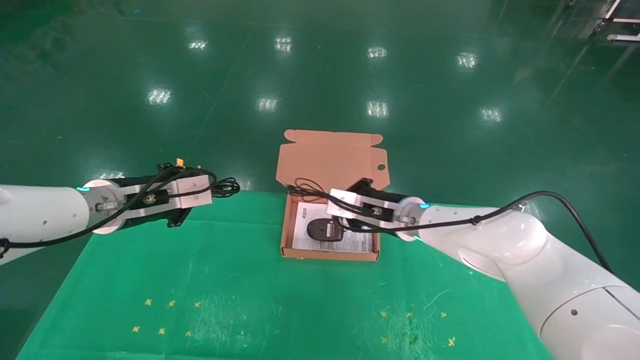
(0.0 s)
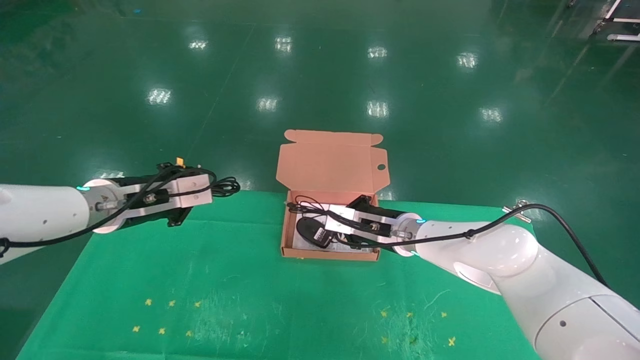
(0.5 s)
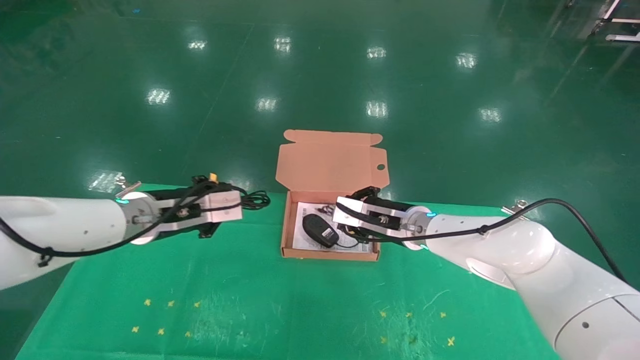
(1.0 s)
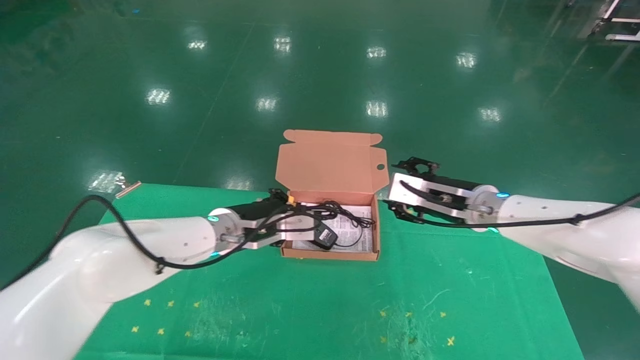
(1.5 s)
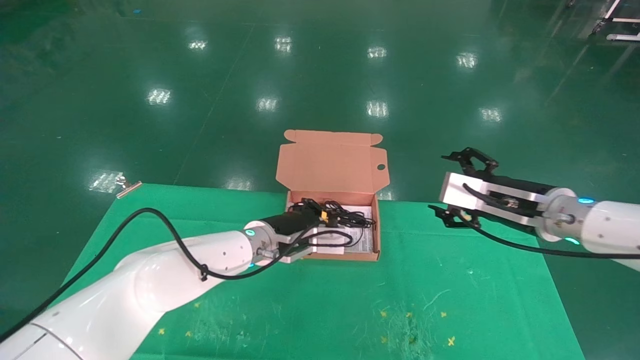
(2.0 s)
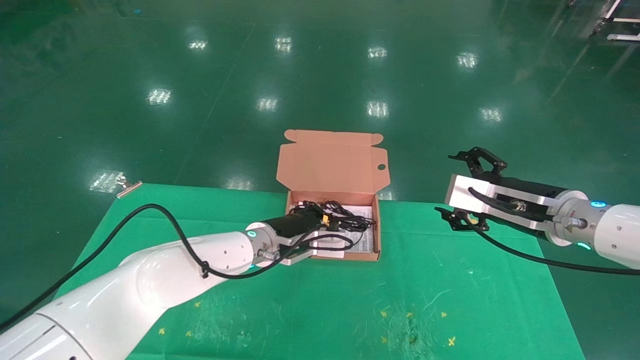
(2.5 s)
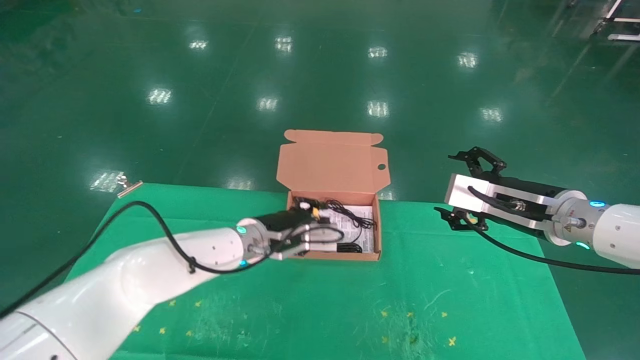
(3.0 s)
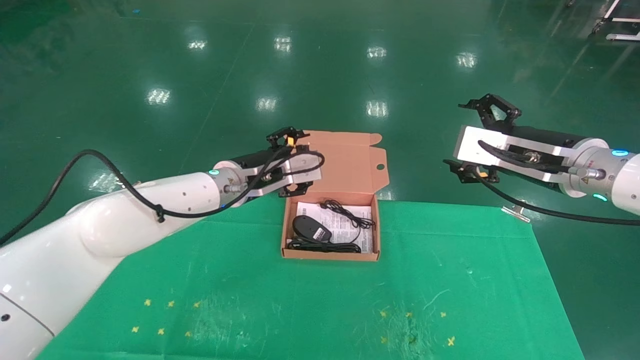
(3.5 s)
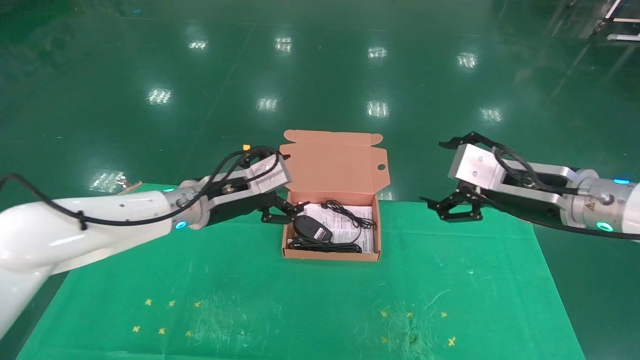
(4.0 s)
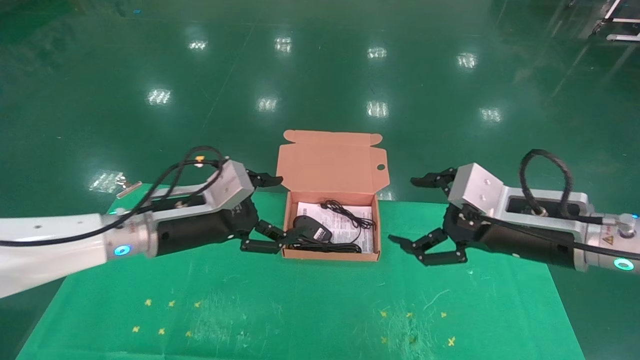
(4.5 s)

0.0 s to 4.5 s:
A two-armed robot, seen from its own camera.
Task of the whole recording: grasp data cable left put into box grasp mouse right put into box.
Step, 0.0 to 3.0 s: Place the mouse and power cord into the box.
0.0 to 2.0 s: The left gripper goes roughly 20 cm to the right and downward. The right gripper shifts approximately 20 cm to the right and backward, and opens up.
2.0 to 4.5 s: The left gripper shifts some 15 cm to the left, backward and upward, and opens up, while the right gripper moves backward, about 10 cm.
